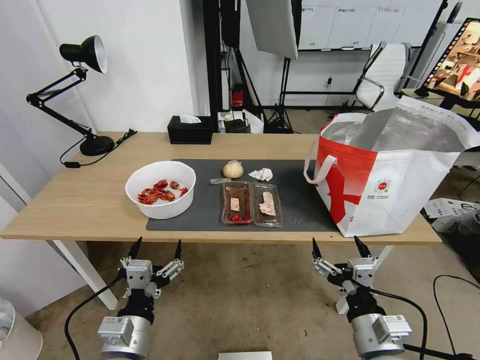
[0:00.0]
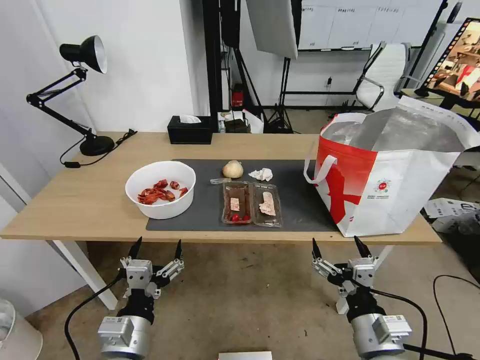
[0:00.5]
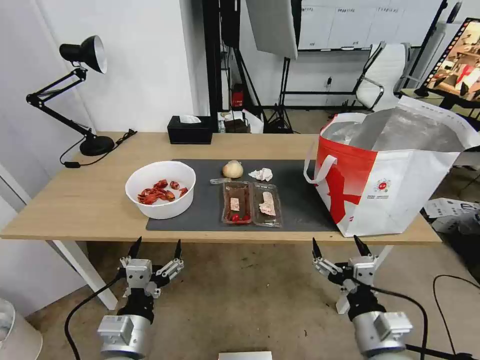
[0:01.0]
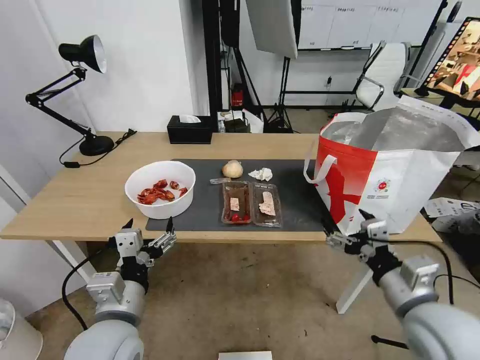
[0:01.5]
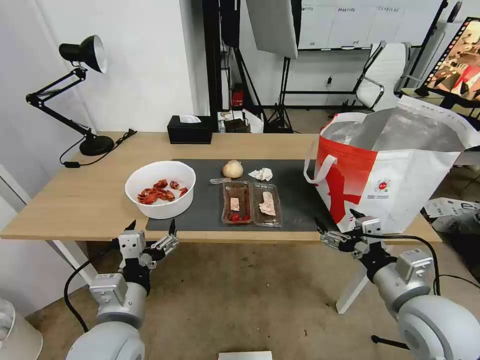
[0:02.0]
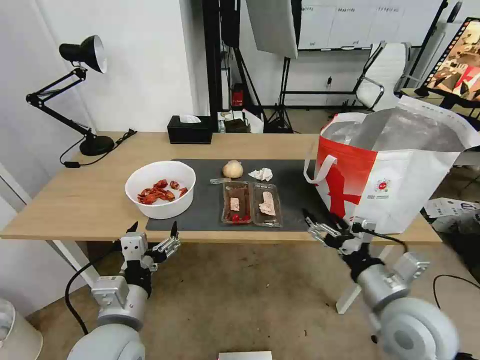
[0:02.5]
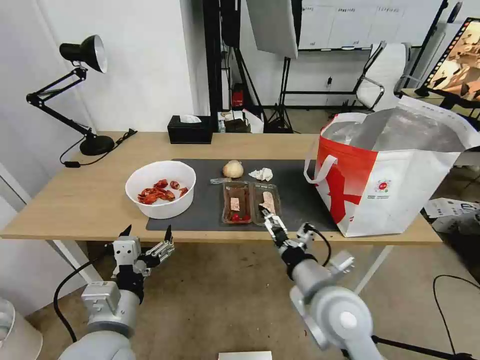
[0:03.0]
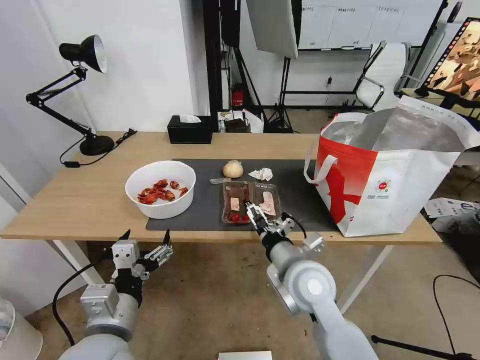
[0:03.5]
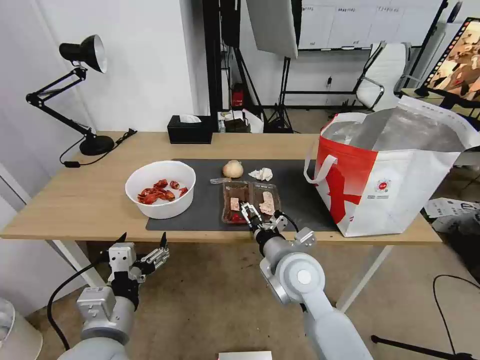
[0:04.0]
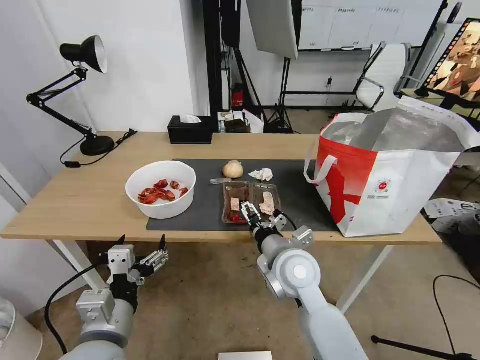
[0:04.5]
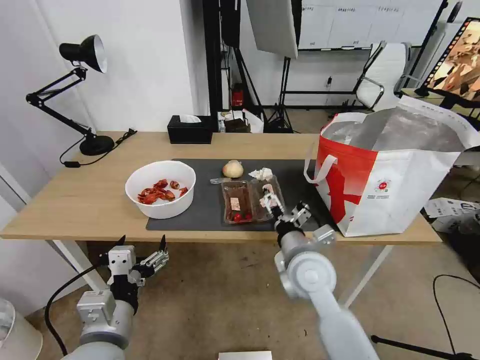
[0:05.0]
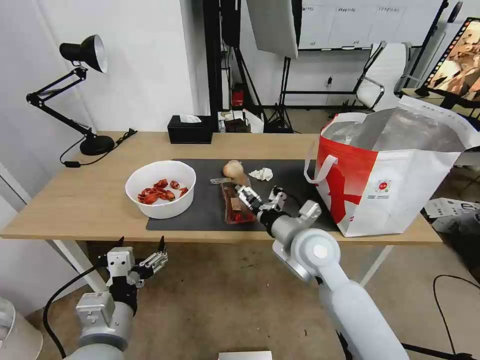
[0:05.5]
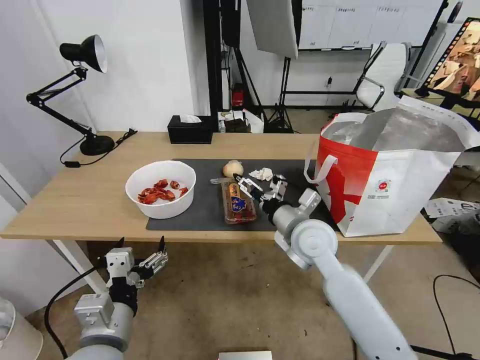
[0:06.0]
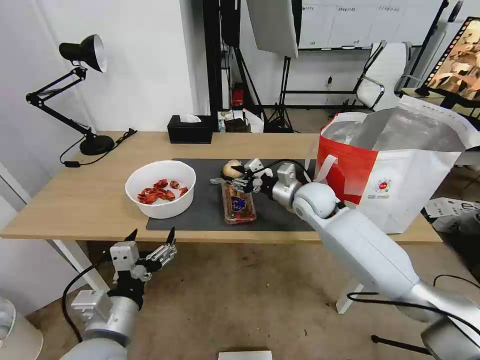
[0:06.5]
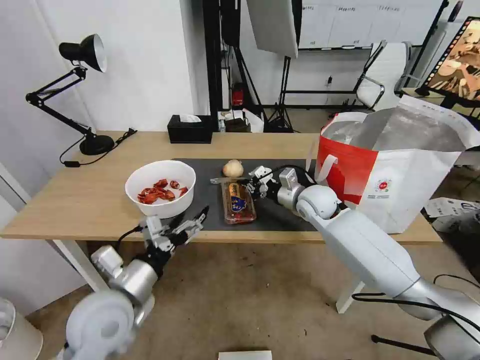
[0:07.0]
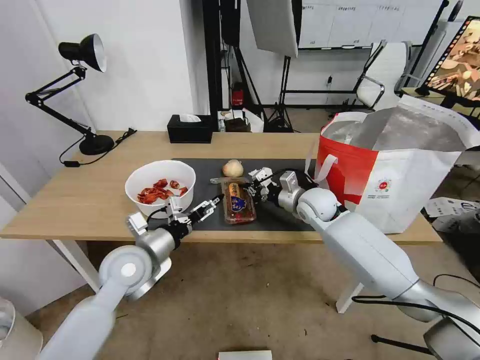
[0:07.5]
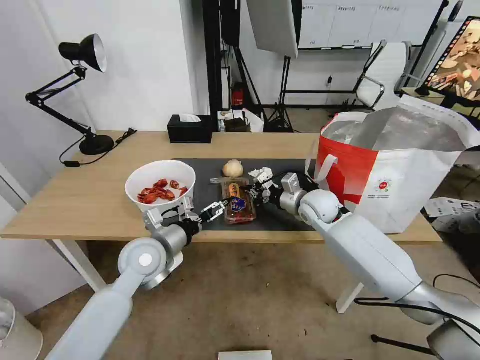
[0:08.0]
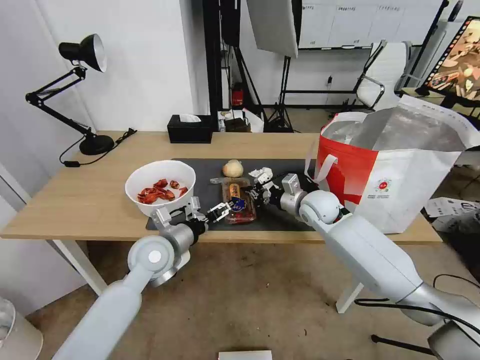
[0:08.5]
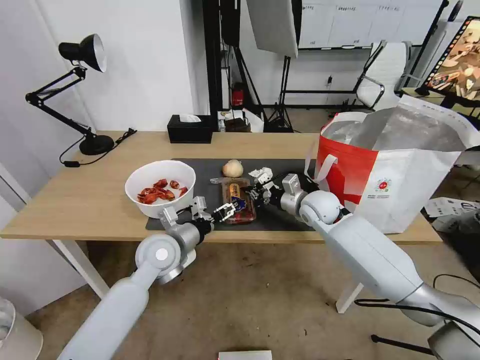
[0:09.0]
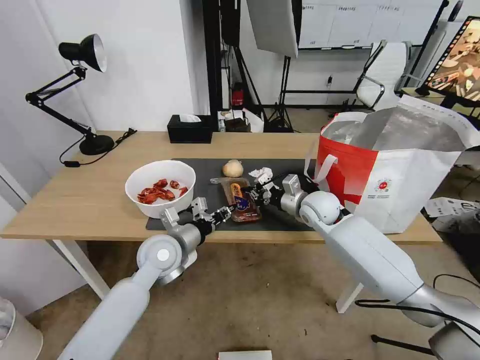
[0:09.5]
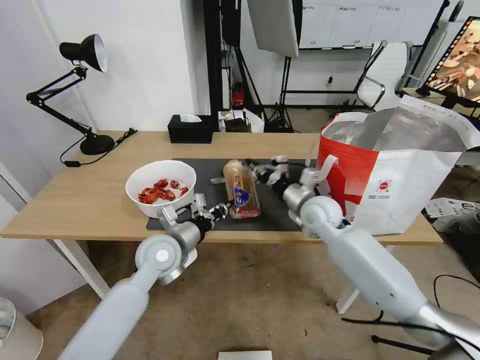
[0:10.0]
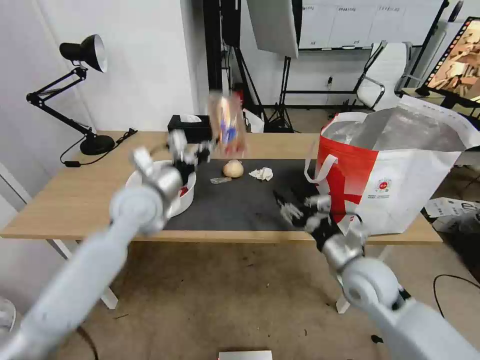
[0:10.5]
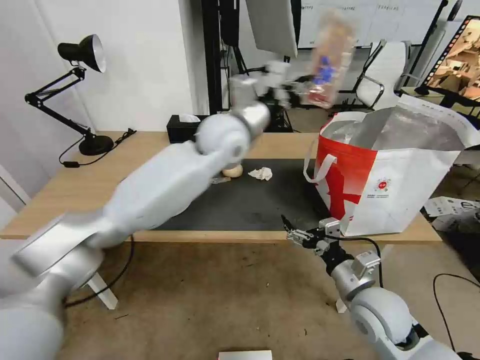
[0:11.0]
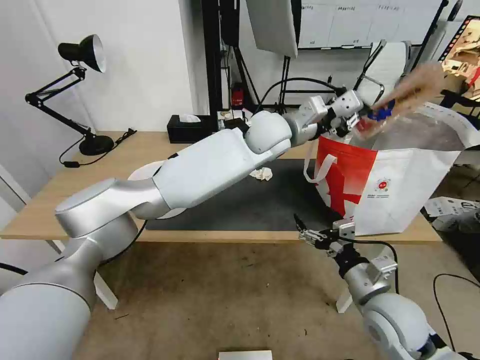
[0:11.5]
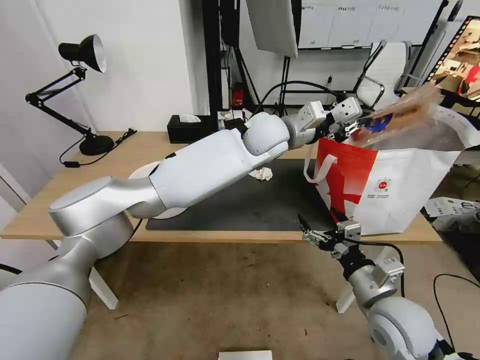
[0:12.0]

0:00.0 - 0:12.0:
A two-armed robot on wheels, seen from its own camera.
Task of the whole recording: Pick up the trash from the table and place it into the takeout bag.
0:02.0 - 0:04.0: The right gripper goes roughly 20 cm to the left and forward.
0:04.0 - 0:06.0: The right gripper moves forward, about 5 cm.
0:06.0 - 0:08.0: The right gripper shifts some 15 cm forward and to the right, and closes its fingers. The left gripper goes roughly 20 cm forward.
0:08.0 - 0:10.0: The left gripper closes up.
0:10.0 - 0:12.0: The right gripper is displaced backward by roughly 25 cm, and opens; the left gripper travels to the right, upward and forward by some 35 cm.

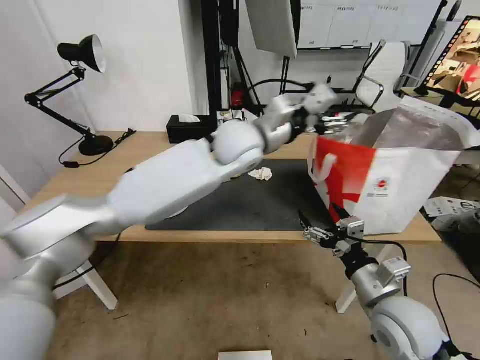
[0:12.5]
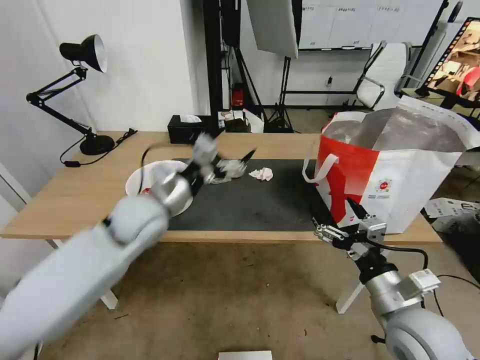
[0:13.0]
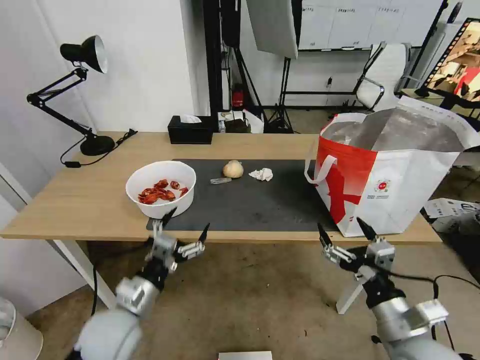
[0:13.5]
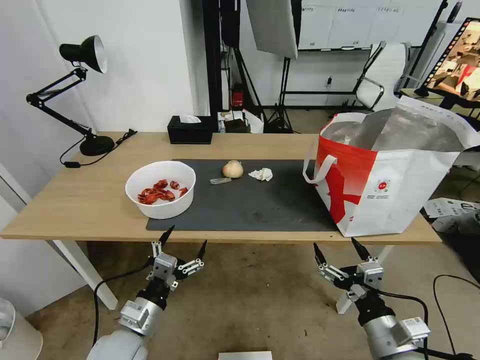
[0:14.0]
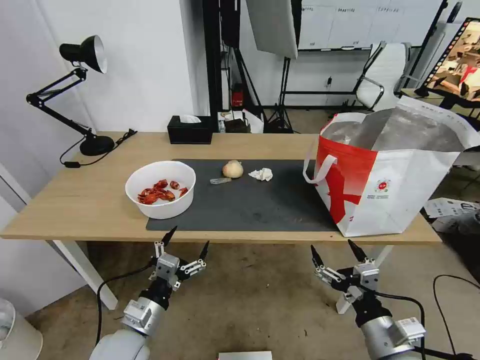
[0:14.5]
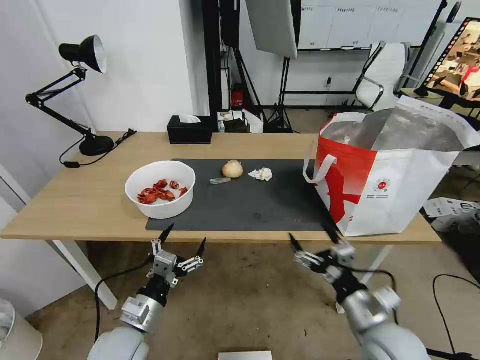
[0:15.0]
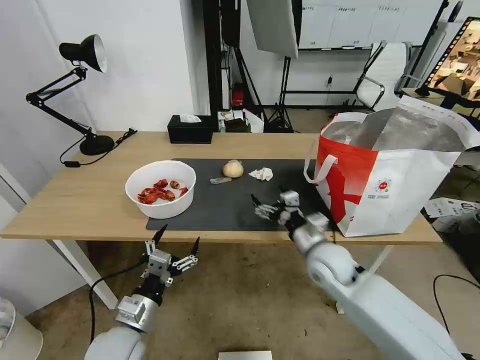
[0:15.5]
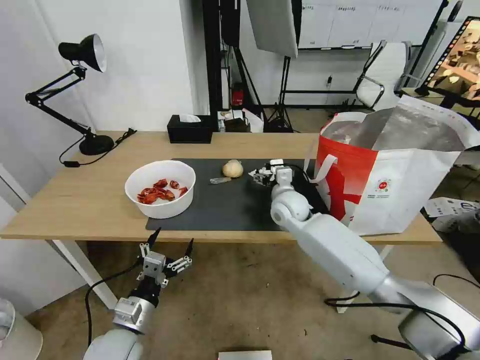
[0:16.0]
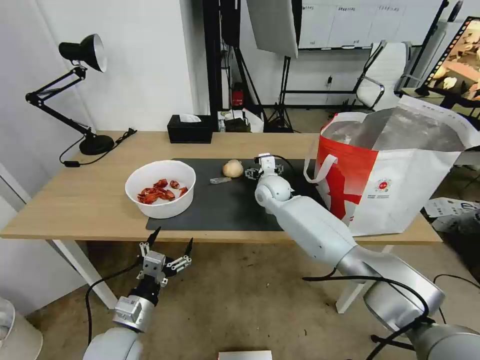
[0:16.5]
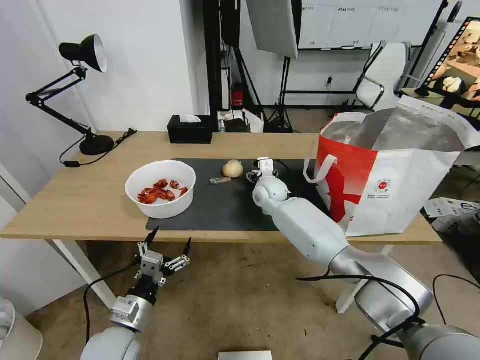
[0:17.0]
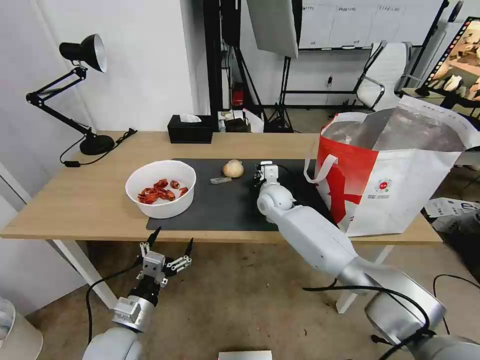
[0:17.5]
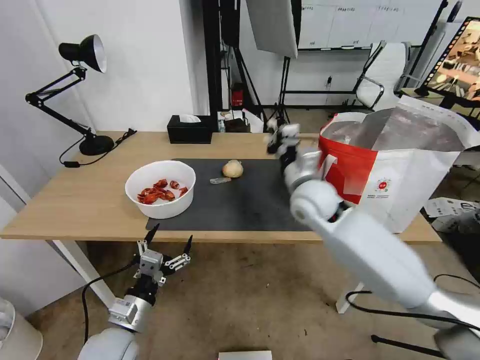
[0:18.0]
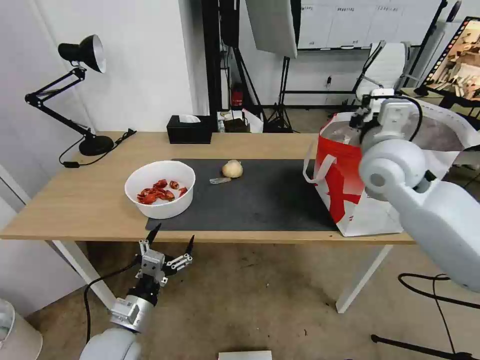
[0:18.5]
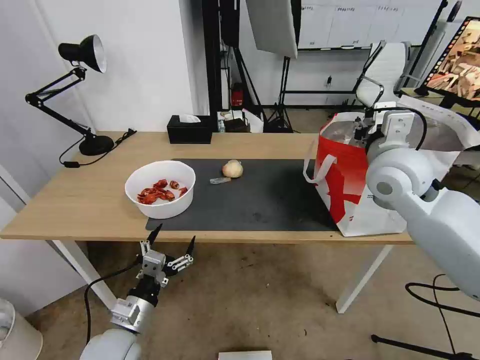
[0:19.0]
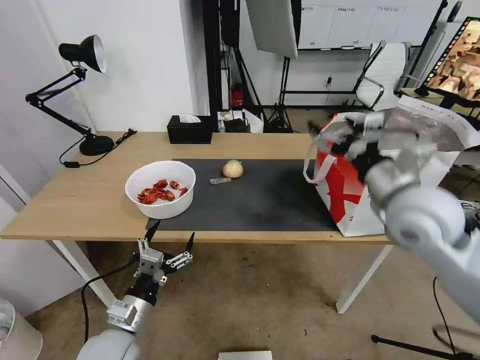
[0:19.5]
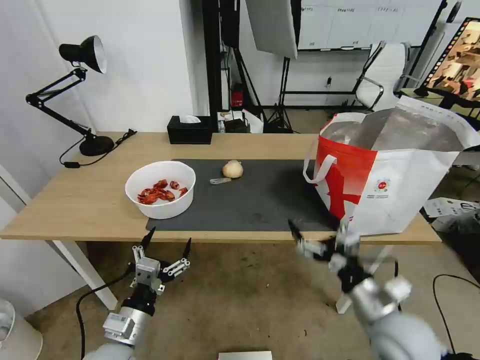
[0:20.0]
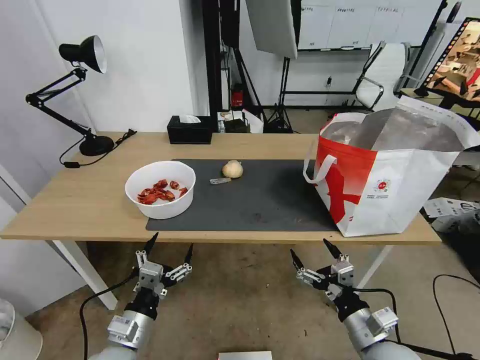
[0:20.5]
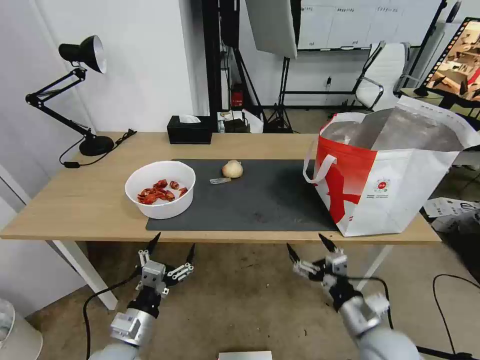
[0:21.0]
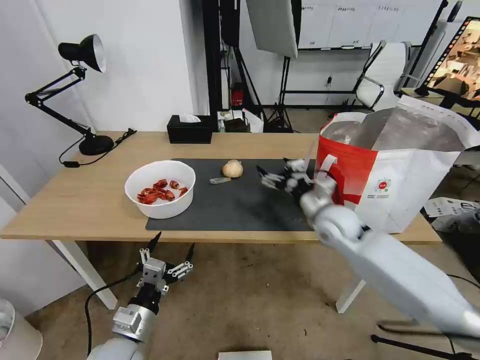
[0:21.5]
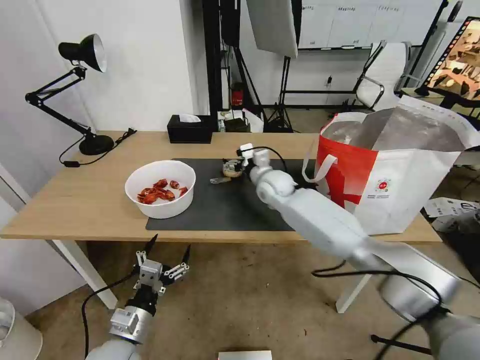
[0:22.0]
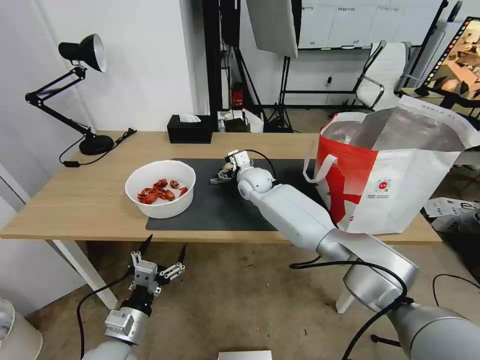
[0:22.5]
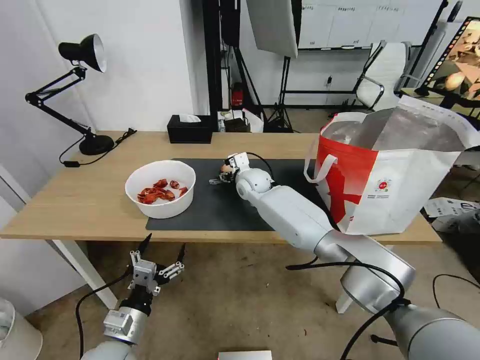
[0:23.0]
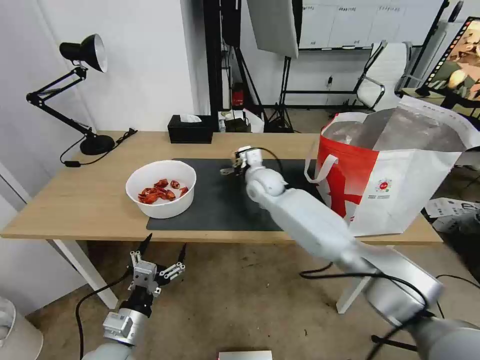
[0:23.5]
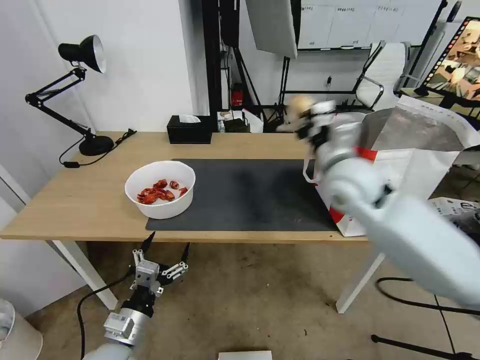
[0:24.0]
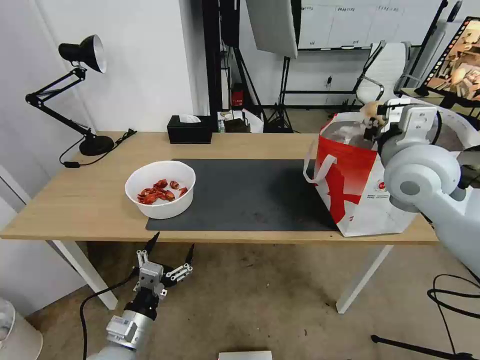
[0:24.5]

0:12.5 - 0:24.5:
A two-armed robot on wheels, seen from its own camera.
Task of the whole recording: Pick up the trash from the table and place it into the takeout bag.
0:12.5 - 0:14.5: The right gripper heads backward and downward, covering approximately 10 cm; the left gripper moves backward, downward and to the left, about 50 cm.
0:14.5 - 0:16.5: The right gripper is displaced forward and to the left by about 50 cm.
0:16.5 - 0:18.5: The right gripper heads upward, to the right and backward, covering approximately 30 cm, and closes.
0:18.5 - 0:20.5: The right gripper shifts approximately 40 cm downward and backward, and opens its fingers.
0:20.5 - 0:22.5: The right gripper goes about 50 cm forward and to the left.
0:22.5 - 0:24.5: The right gripper shifts roughly 35 cm to the right, upward and backward, and closes.

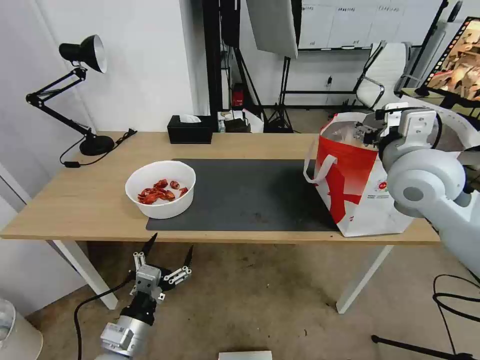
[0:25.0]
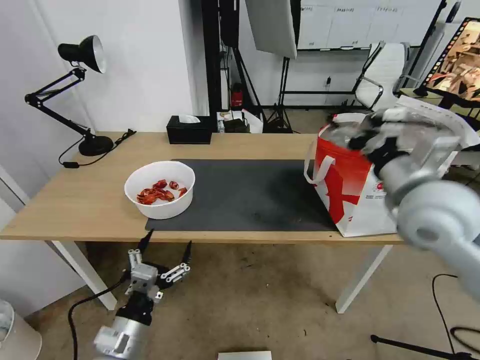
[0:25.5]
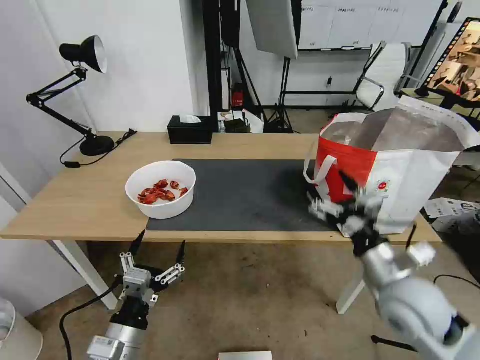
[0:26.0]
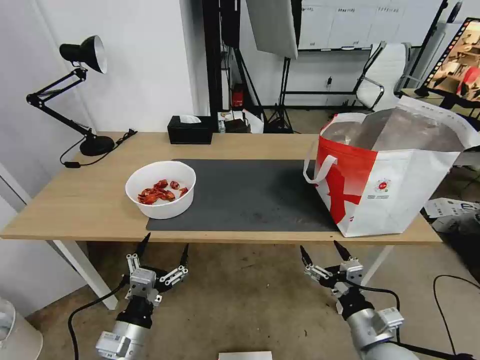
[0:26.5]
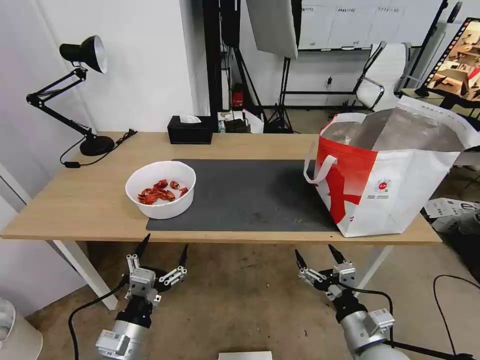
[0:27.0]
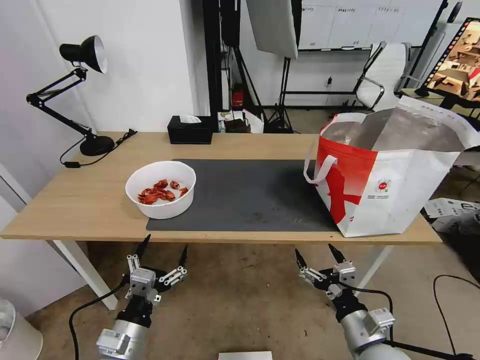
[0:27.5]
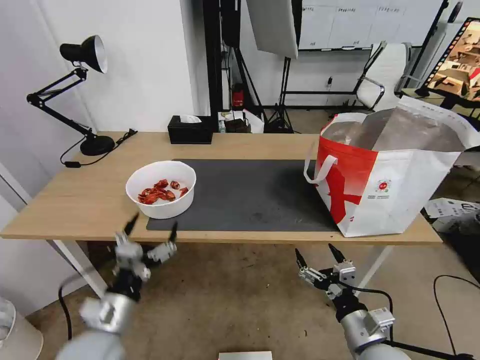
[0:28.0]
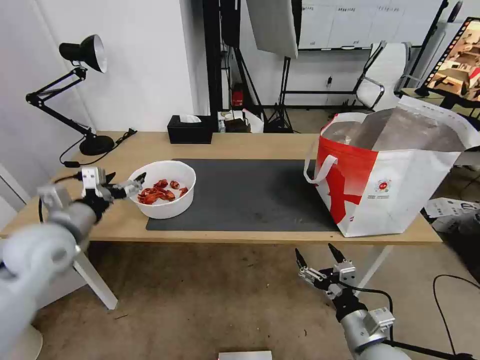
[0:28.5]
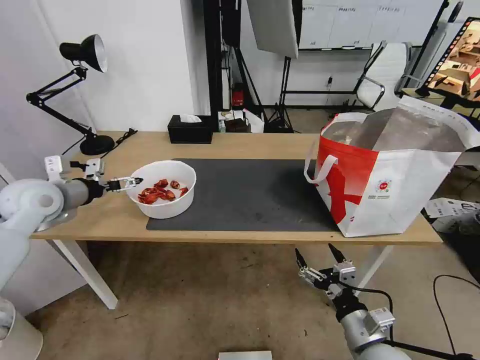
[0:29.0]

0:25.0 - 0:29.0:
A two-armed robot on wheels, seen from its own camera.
Task of the whole recording: Pick up the trash from the table and place it into the takeout bag.
0:25.0 - 0:27.0: The right gripper shifts roughly 35 cm downward and backward.
0:27.0 - 0:29.0: The left gripper travels forward, upward and to the left by about 40 cm.
